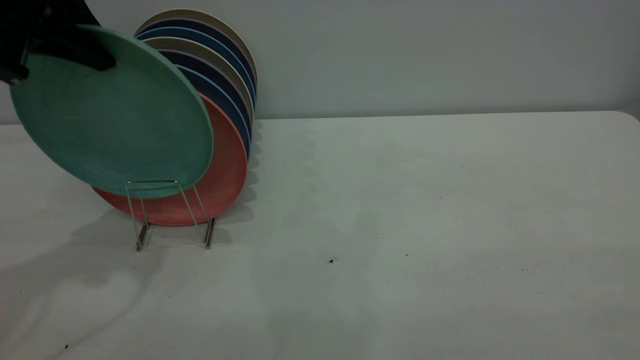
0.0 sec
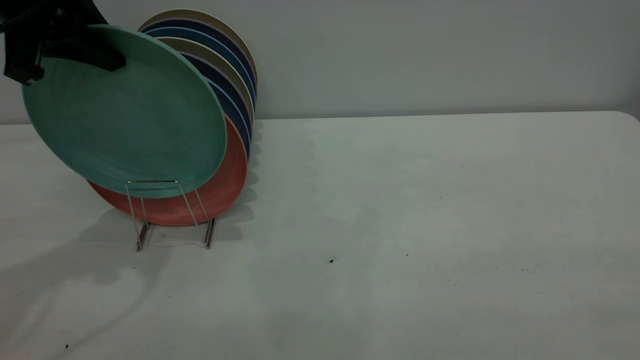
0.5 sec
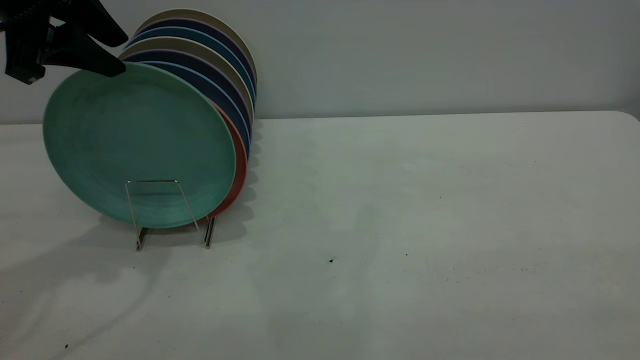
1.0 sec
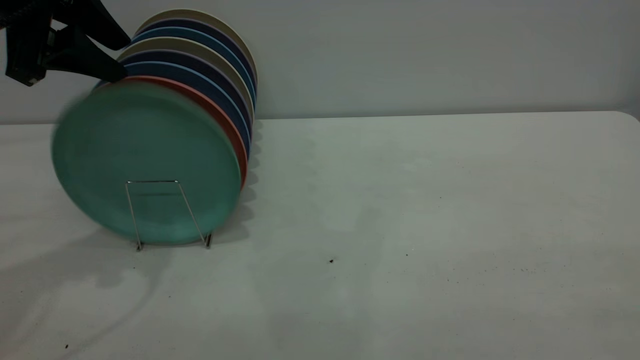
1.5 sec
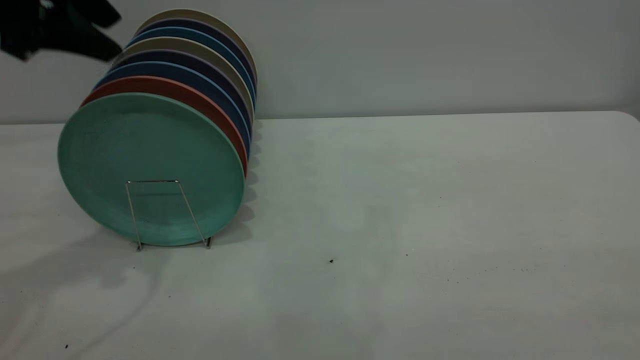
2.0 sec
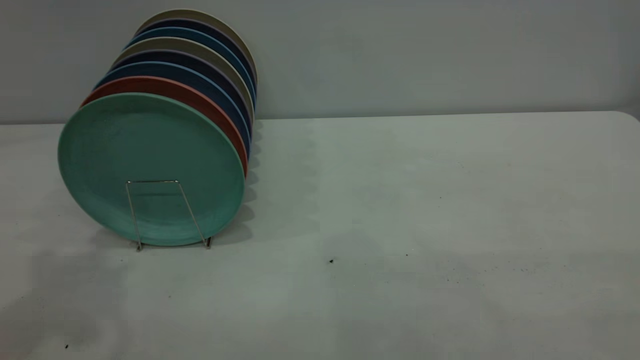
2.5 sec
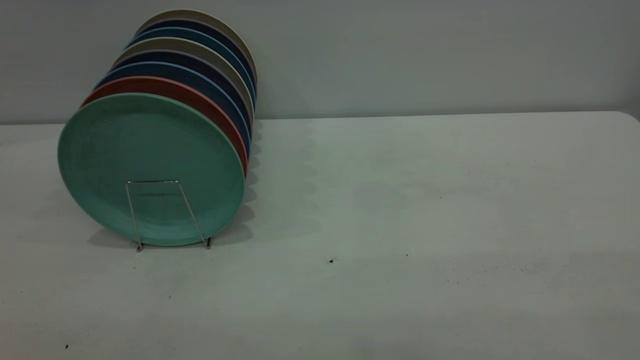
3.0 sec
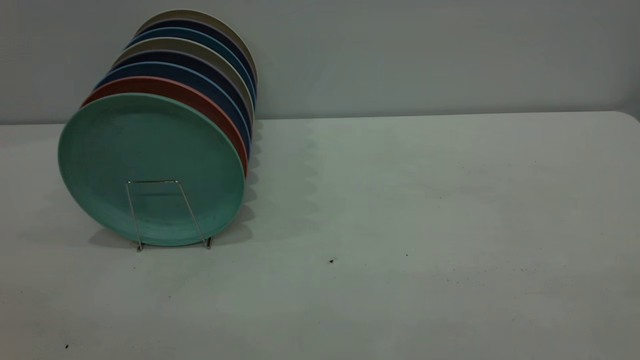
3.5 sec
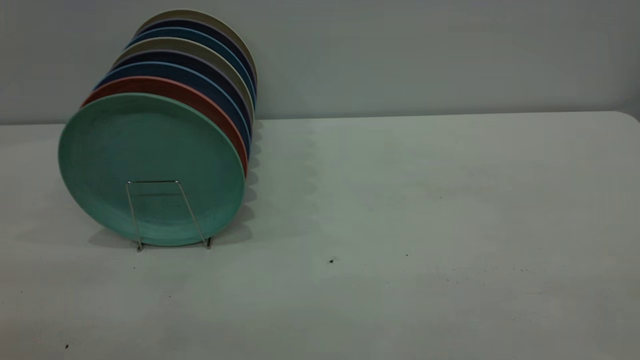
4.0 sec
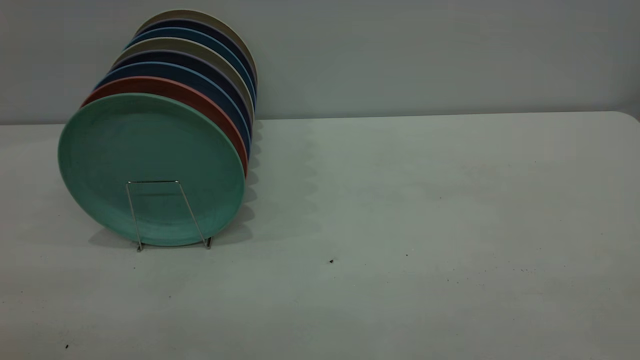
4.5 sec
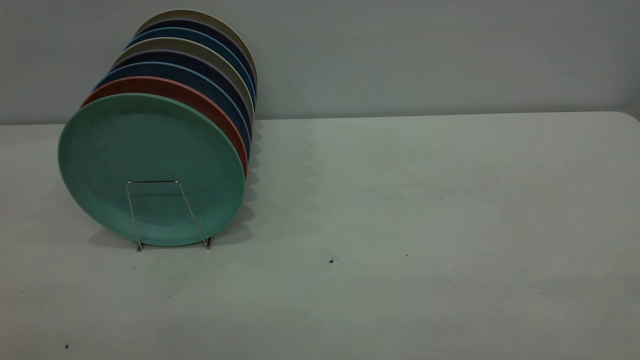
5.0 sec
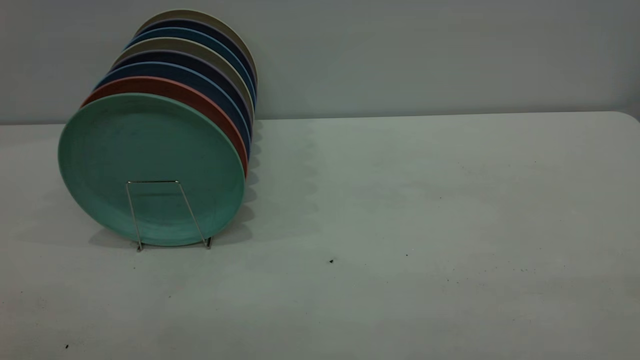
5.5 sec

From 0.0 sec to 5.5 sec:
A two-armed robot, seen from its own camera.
Task of the whole recording: the right gripper grasp the green plate, the right gripper pass the green plate to the left gripper, and the left gripper place the green plate on the plate rack.
Step, from 0.0 sec to 2.0 sec: Place the plate on the shelf.
From 0.0 sec to 2.0 sec: The left gripper opens.
From 2.0 sec to 3.5 sec: The left gripper heads backward, covering roughly 30 cm.

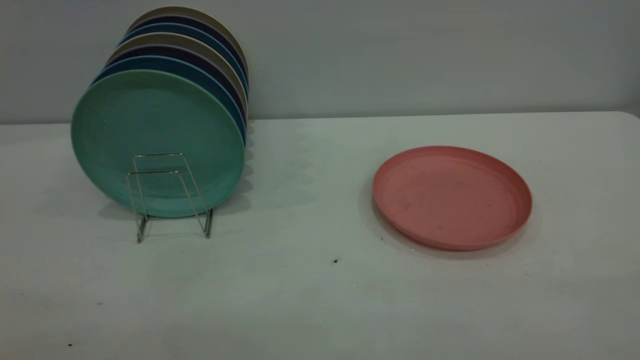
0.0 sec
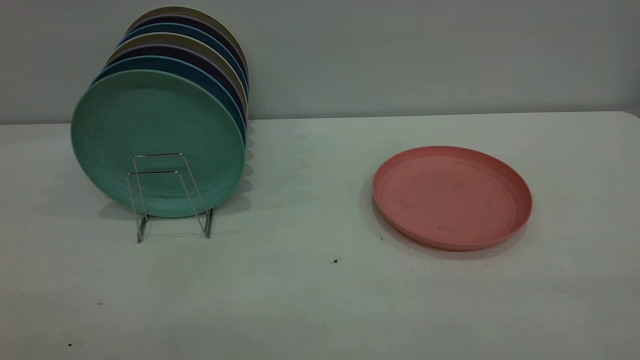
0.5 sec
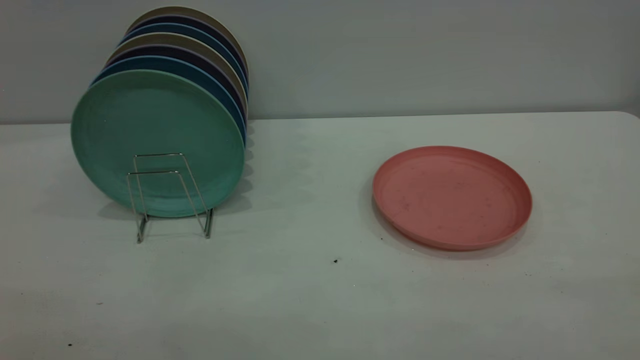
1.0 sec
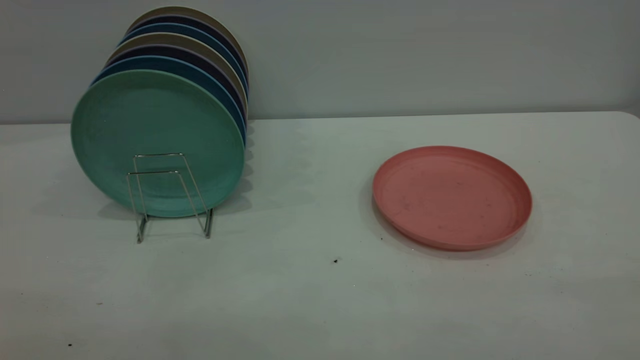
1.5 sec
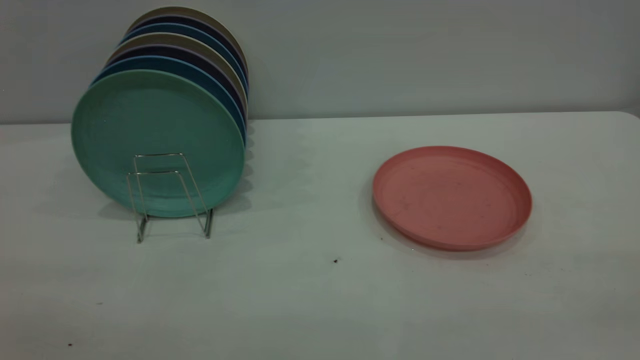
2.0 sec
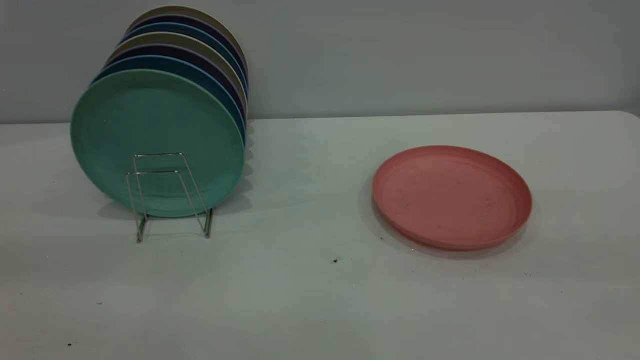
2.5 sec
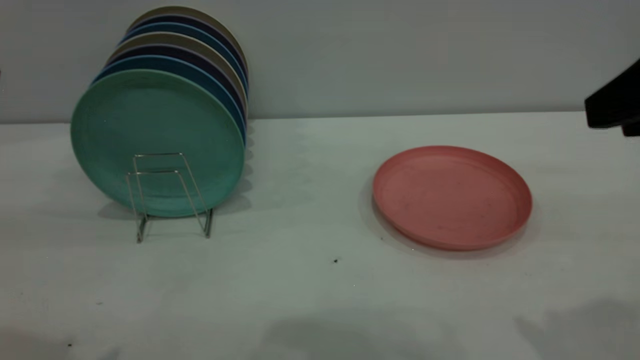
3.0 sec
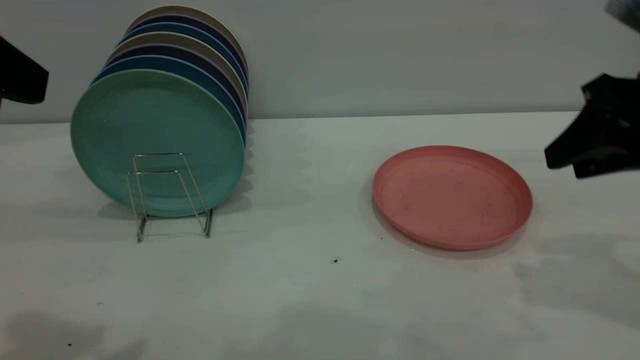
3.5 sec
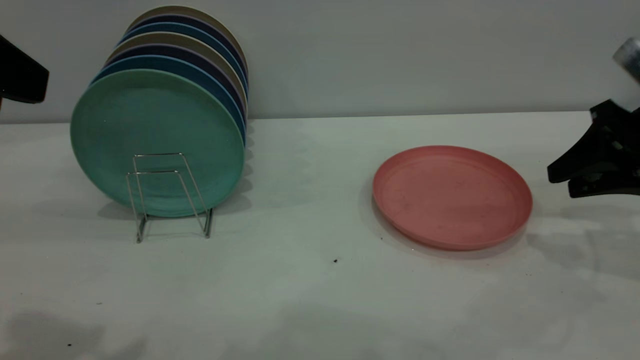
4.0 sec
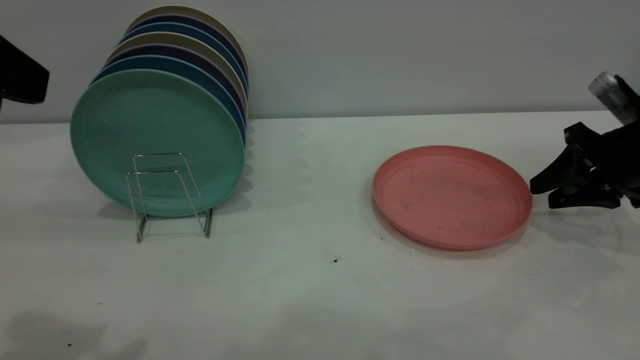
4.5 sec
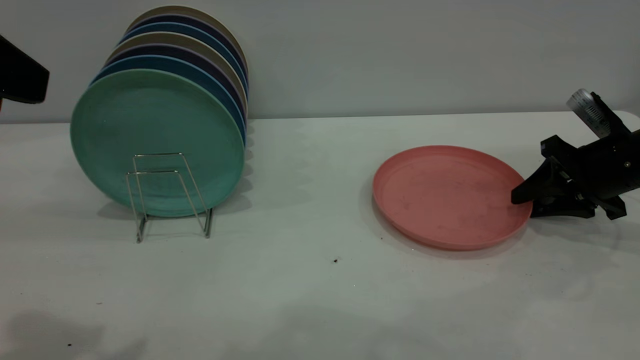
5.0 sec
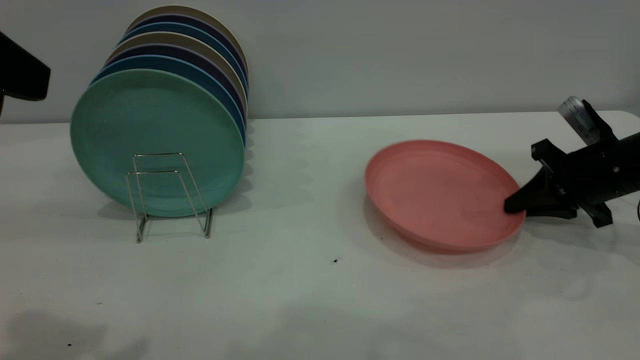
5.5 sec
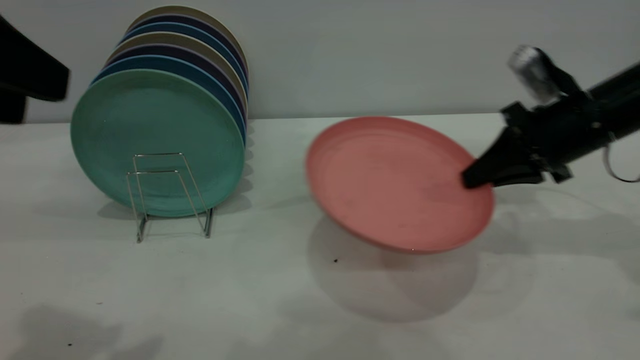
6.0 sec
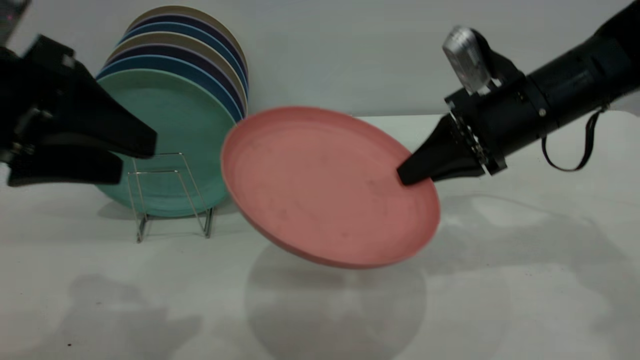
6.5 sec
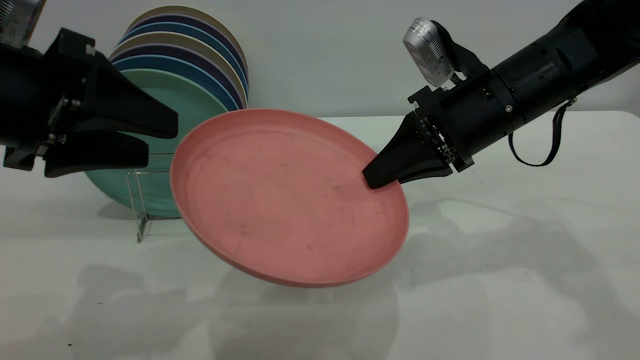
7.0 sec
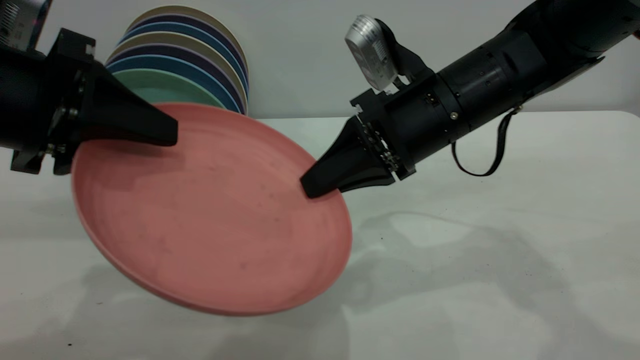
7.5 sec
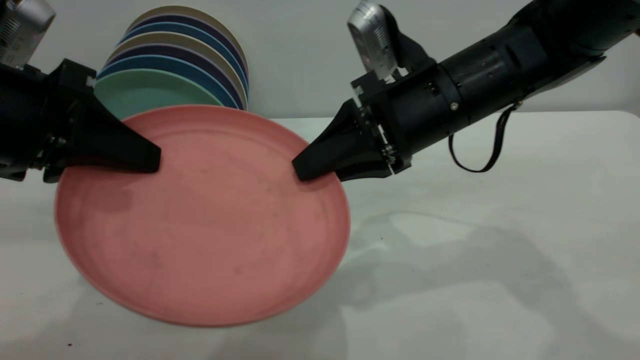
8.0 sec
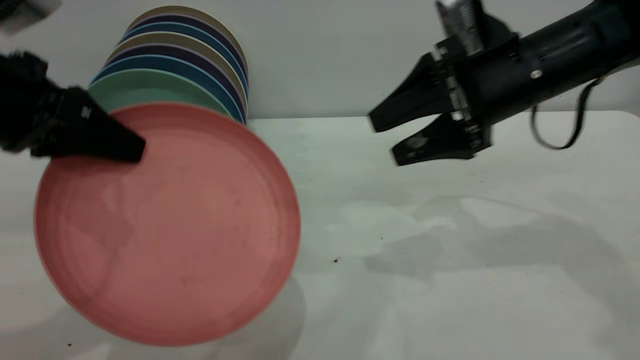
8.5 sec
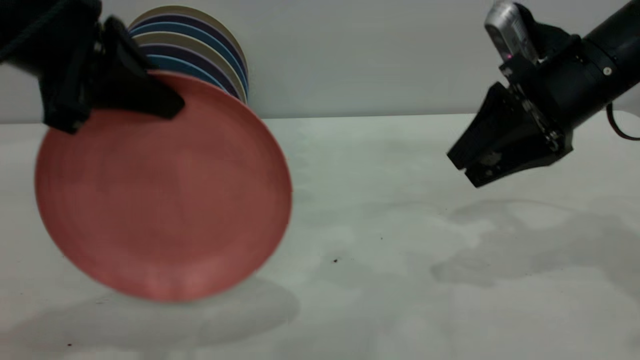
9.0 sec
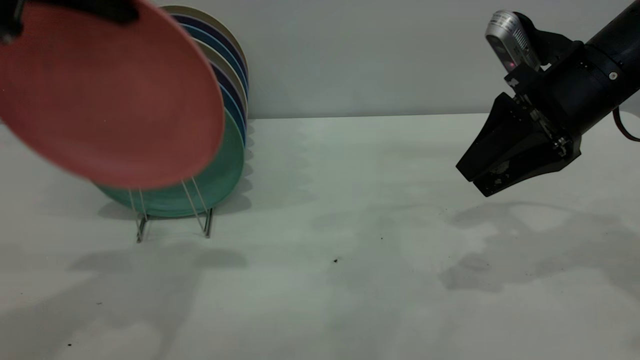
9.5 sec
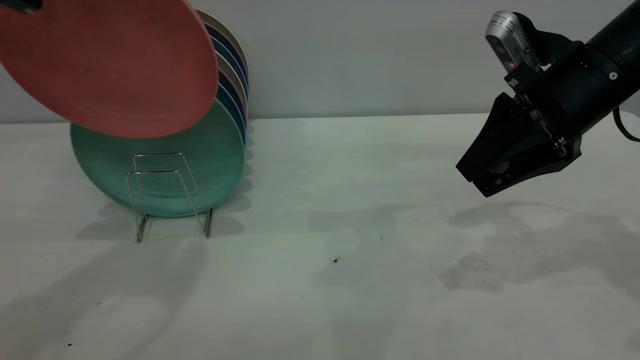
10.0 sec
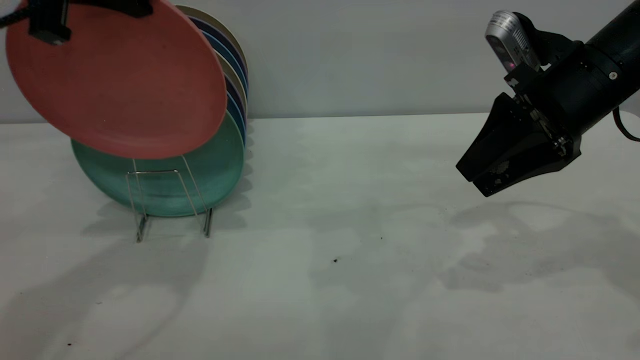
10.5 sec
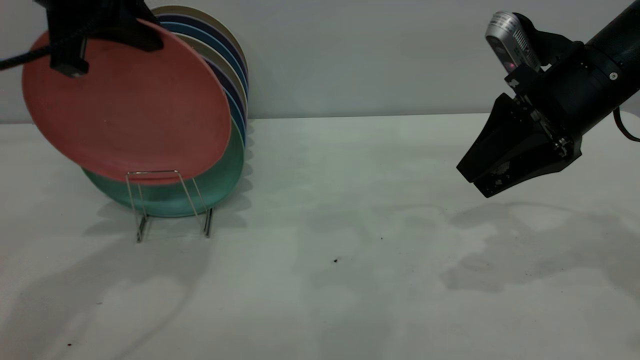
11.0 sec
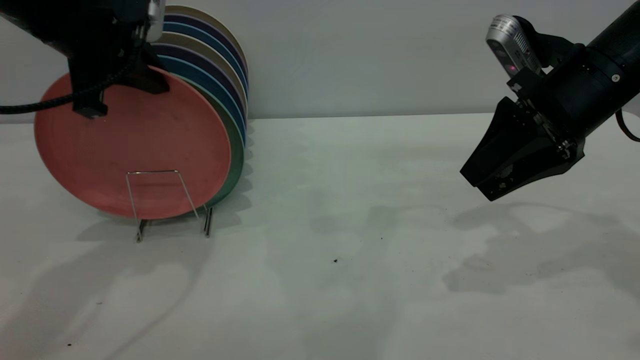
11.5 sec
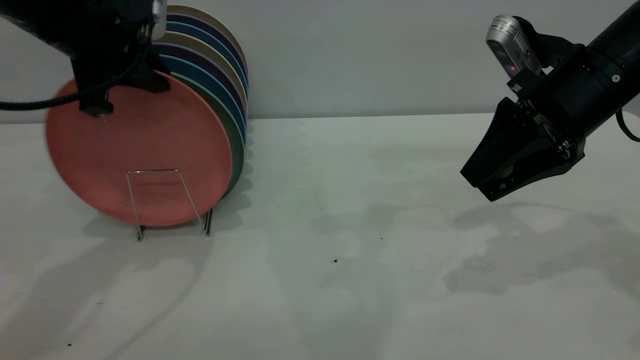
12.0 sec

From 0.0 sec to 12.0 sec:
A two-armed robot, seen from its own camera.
Task of the whole recording: the right gripper grasp the pink plate, the right gripper pass the pink plate to the left gripper, and the left gripper place the pink plate on the plate rack.
Step, from 0.0 sec to 5.5 sec: Pick up the plate with the right gripper.
Step, from 6.0 sec to 8.0 sec: Pass the plate from the right gripper to the left gripper.
From 2.0 sec to 4.0 sec: The left gripper shifts some 20 cm forward. Meanwhile the right gripper is displaced forward and downward by approximately 40 cm.
From 4.0 sec to 6.0 sec: The right gripper shifts about 10 cm to the left, and closes up.
From 6.0 sec to 8.0 sec: The right gripper moves to the left, about 15 cm, and opens up. Meanwhile the left gripper heads downward, covering approximately 10 cm, and closes up.
From 8.0 sec to 10.0 sec: The right gripper is displaced to the right by roughly 15 cm, and opens, then closes once more, while the left gripper moves upward and forward, approximately 15 cm.
From 10.0 sec to 12.0 sec: The left gripper is displaced downward by approximately 10 cm.

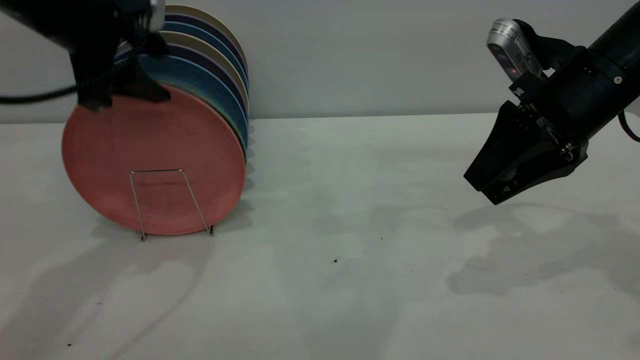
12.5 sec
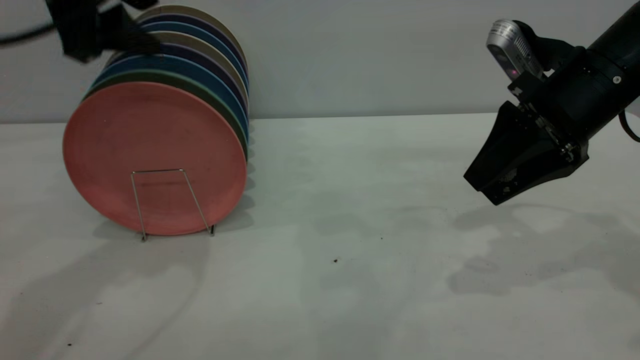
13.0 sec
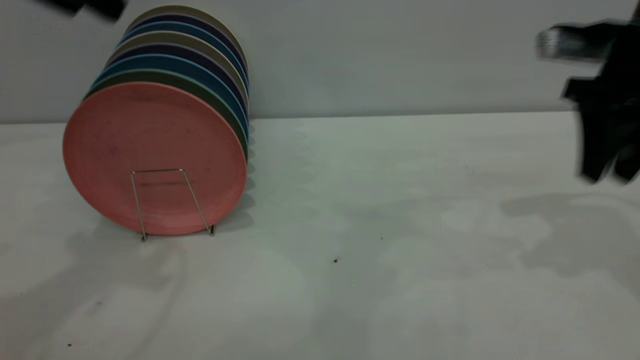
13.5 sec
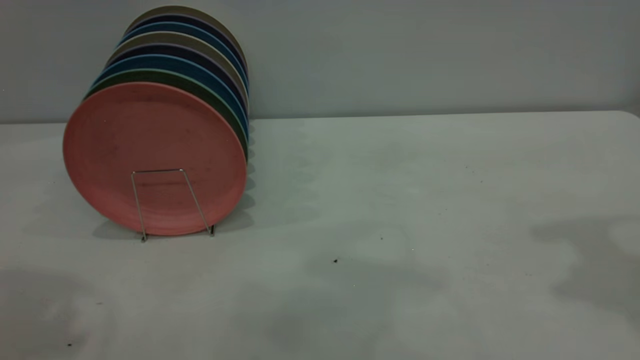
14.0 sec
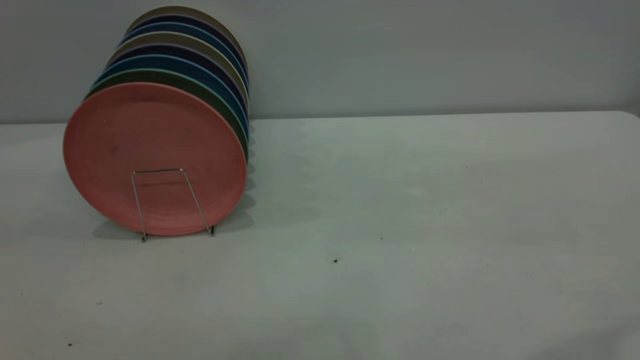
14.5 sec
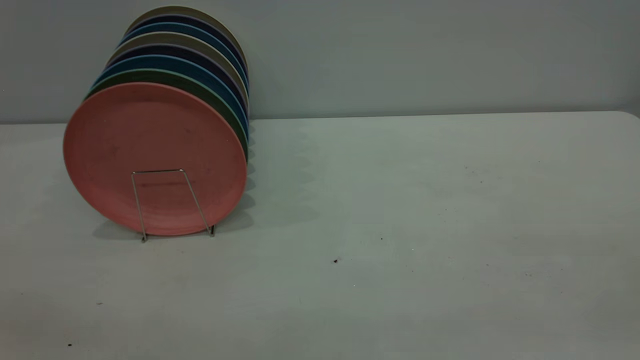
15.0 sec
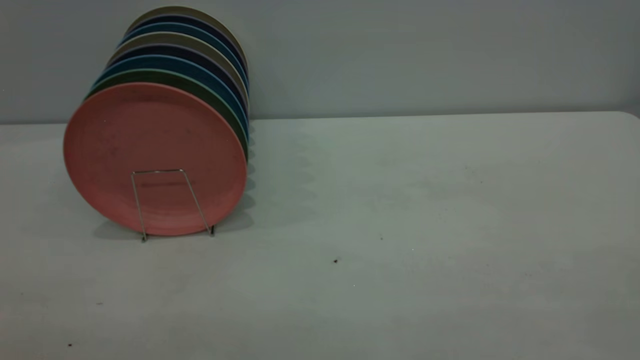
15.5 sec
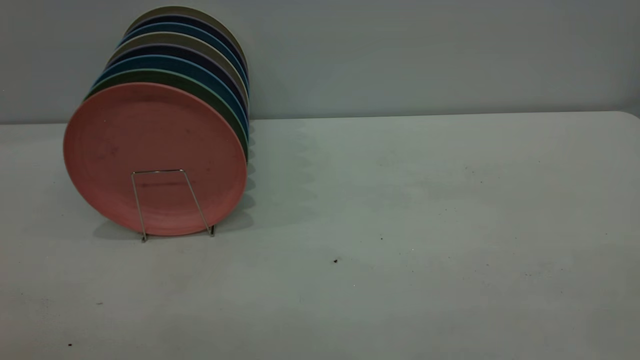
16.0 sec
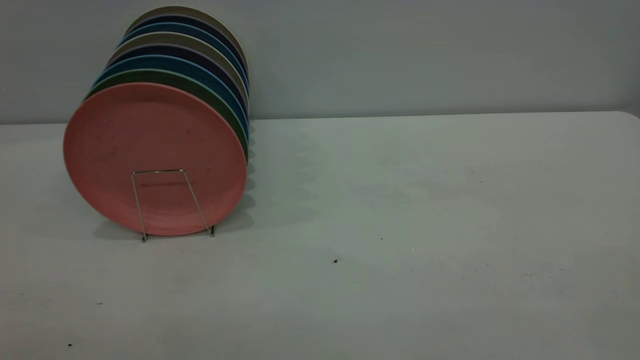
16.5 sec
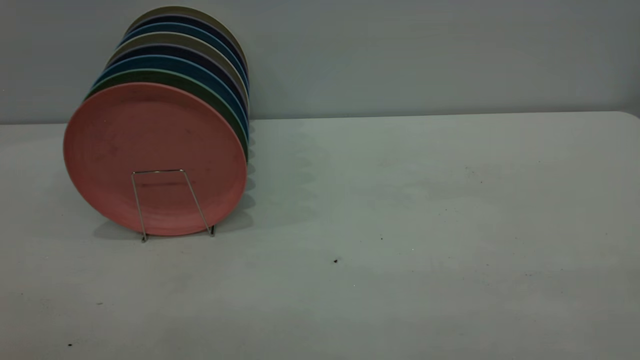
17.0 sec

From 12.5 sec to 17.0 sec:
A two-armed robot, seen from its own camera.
Task of the whole recording: the right gripper grasp the pink plate, the right gripper pass the pink plate to the left gripper, and the left gripper place the pink plate on the plate rack.
From 12.5 sec to 14.5 sec: Both grippers travel together backward and upward, approximately 30 cm.
